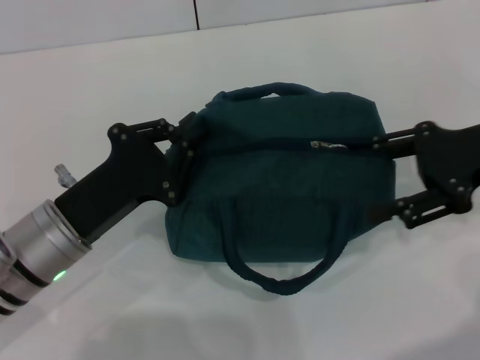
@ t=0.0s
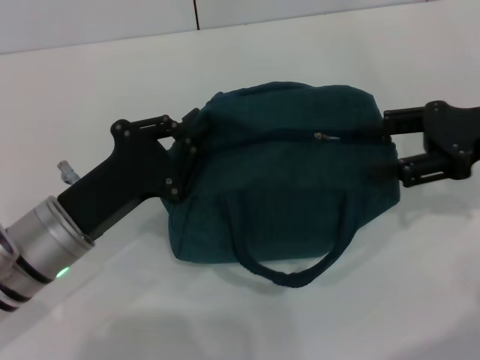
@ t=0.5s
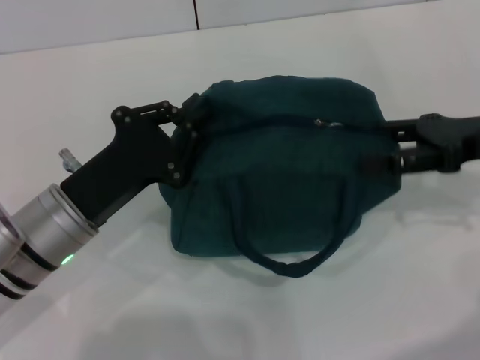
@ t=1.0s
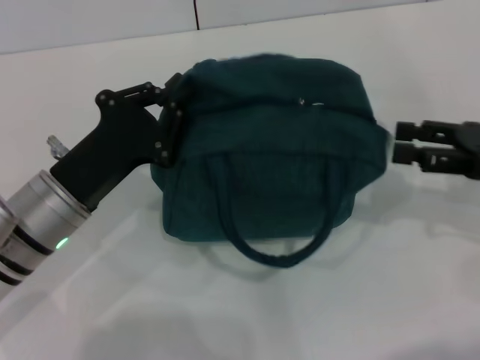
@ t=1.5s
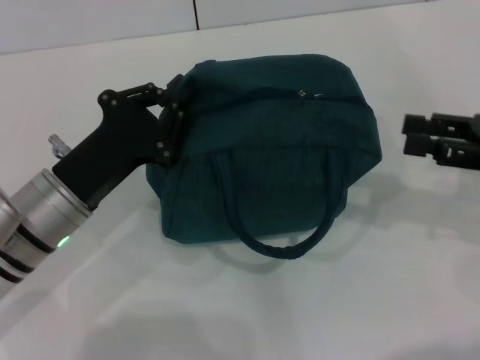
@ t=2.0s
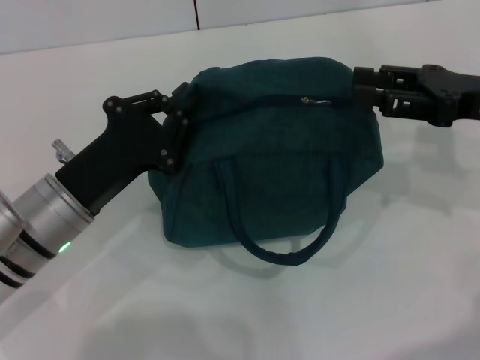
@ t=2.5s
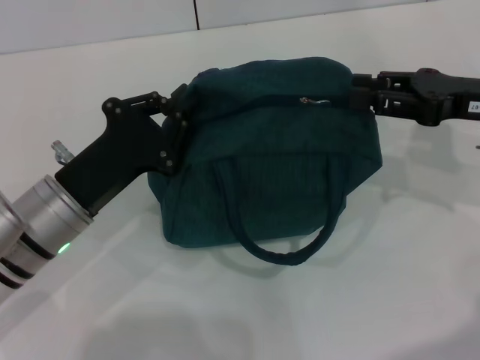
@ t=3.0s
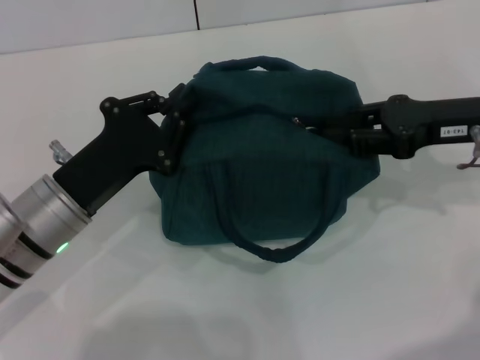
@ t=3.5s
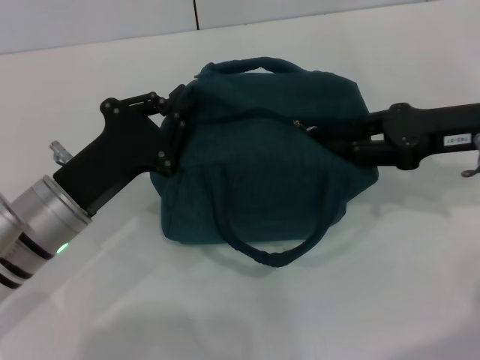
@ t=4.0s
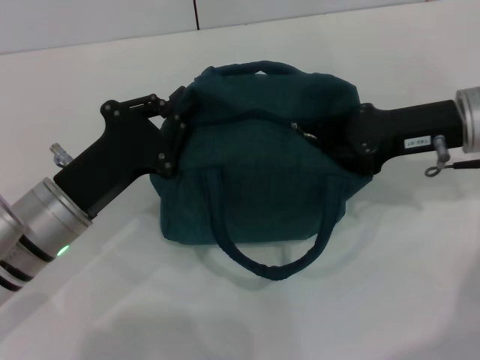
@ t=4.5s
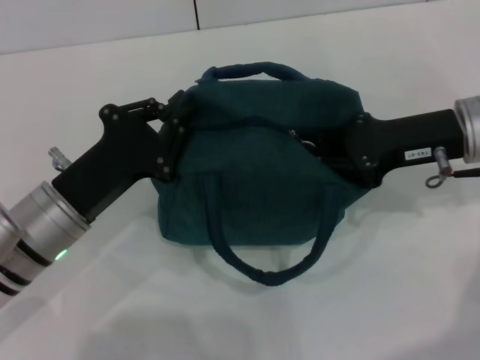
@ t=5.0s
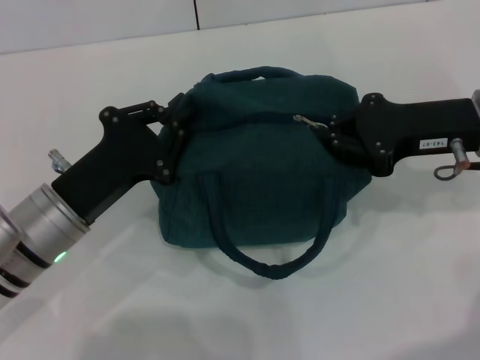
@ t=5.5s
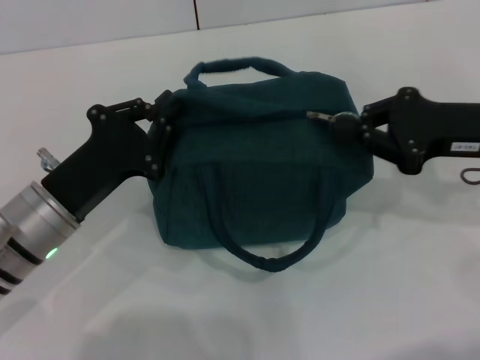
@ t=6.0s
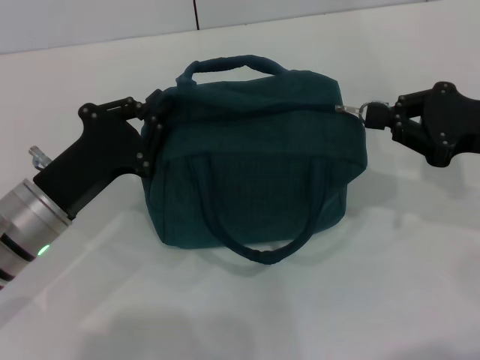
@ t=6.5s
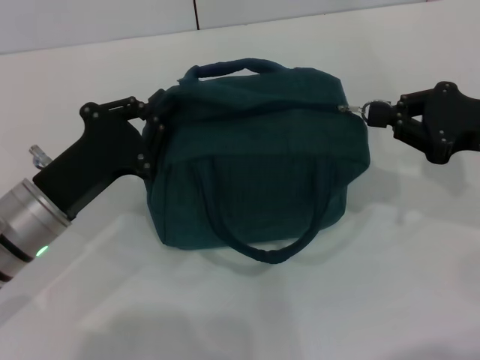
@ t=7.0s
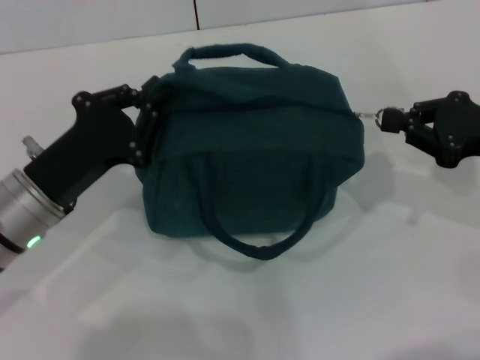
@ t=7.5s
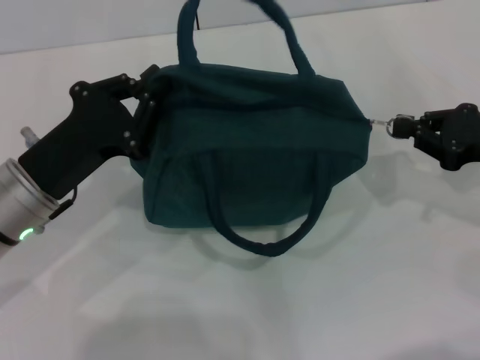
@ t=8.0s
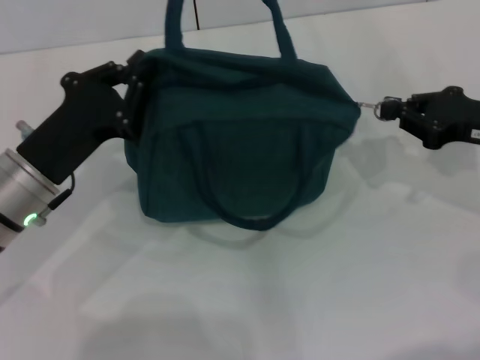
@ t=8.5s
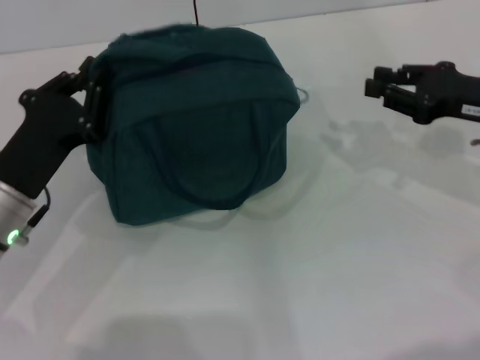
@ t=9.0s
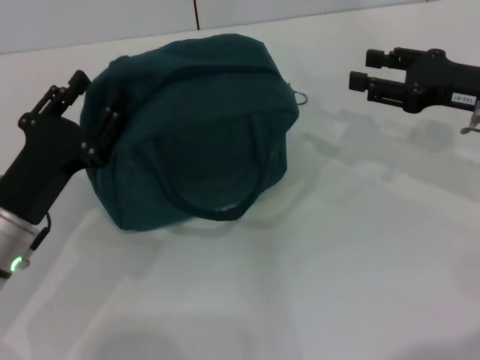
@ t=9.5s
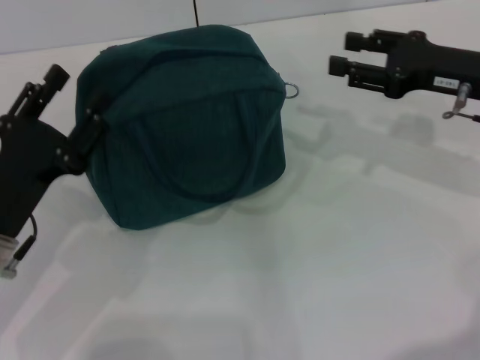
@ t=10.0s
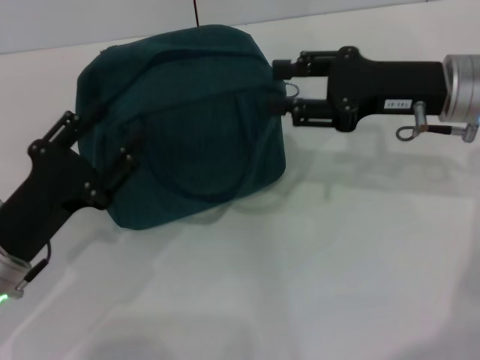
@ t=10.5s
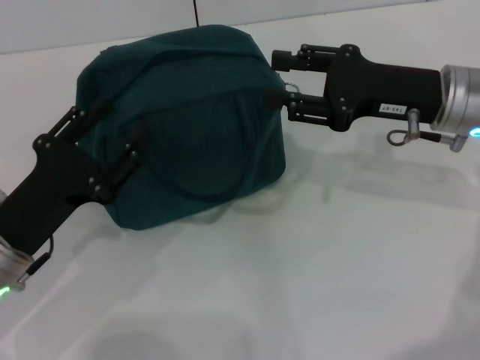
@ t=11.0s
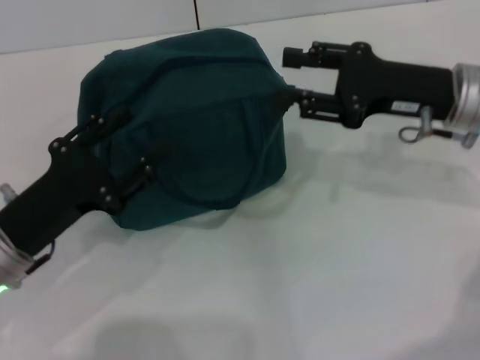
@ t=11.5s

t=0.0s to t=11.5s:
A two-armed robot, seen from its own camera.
Step, t=0.0s to t=8.5s: Zip up the lunch bag with your right hand.
Step, t=9.0s to t=9.5s: Hold the lunch bag with your left hand.
t=0.0s to t=2.0s: The right gripper changes place by approximately 5 cm.
t=2.0s to t=4.0s: The right gripper goes roughly 10 cm forward and to the left, and closes up.
t=4.0s to t=6.0s: The right gripper closes up.
t=6.0s to t=7.5s: The grippers stay close to where they were, moving slightly.
t=7.5s to t=9.5s: The right gripper ends up roughly 5 cm from where it was, and opens up.
t=9.5s to t=11.5s: The left gripper opens up; the right gripper shifts roughly 5 cm to the left.

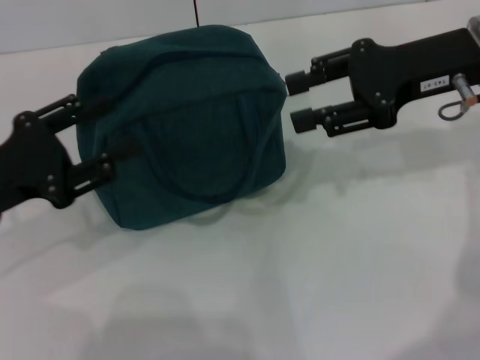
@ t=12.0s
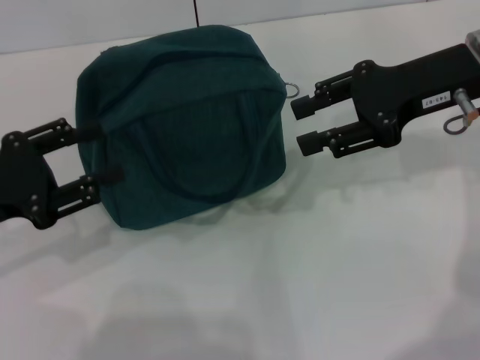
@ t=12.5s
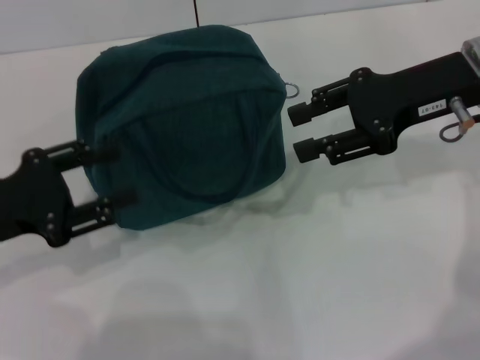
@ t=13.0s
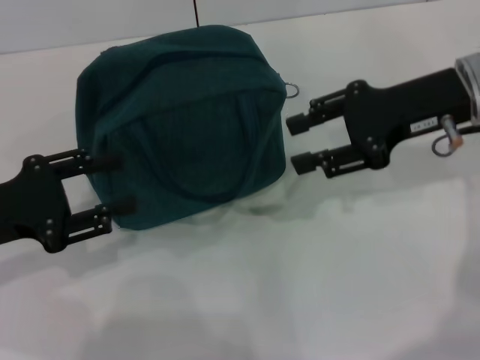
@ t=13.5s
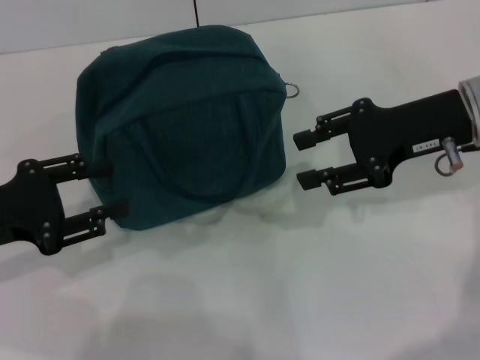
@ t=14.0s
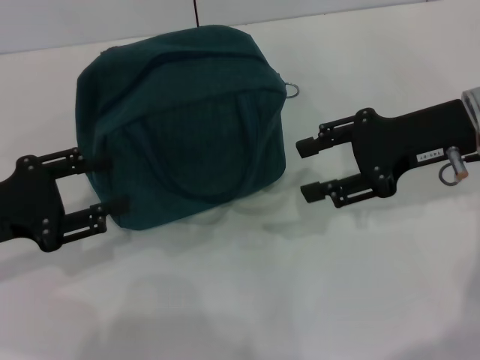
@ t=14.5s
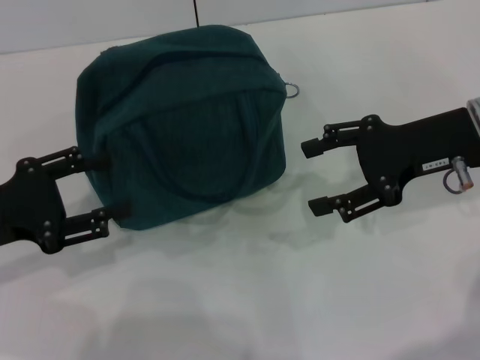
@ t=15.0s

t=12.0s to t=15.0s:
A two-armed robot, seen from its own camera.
t=12.0s to t=15.0s: The grippers stay close to where they were, moving slightly.
